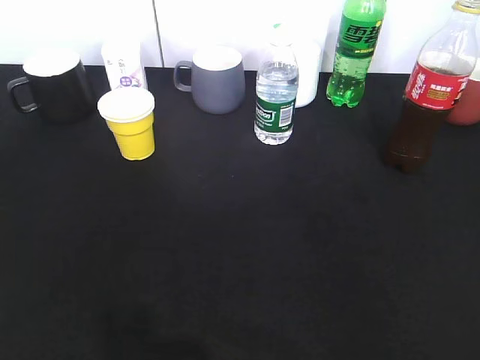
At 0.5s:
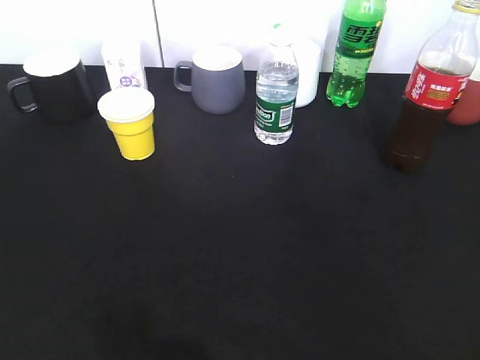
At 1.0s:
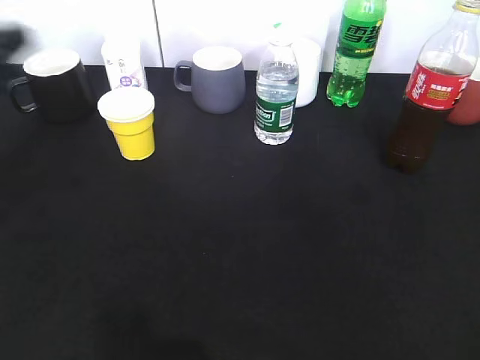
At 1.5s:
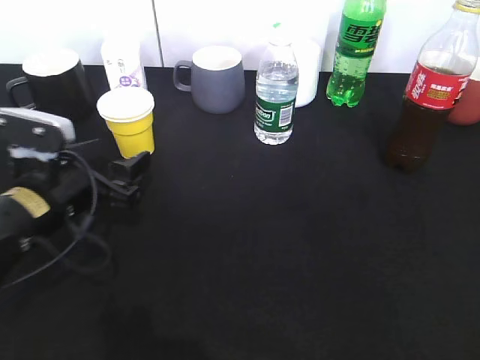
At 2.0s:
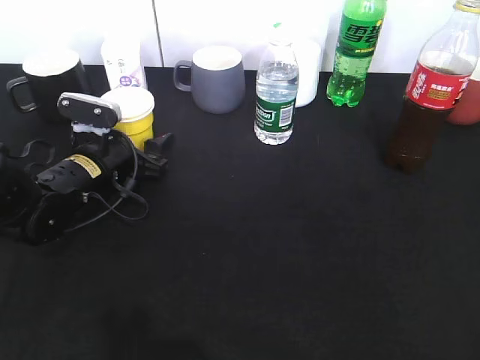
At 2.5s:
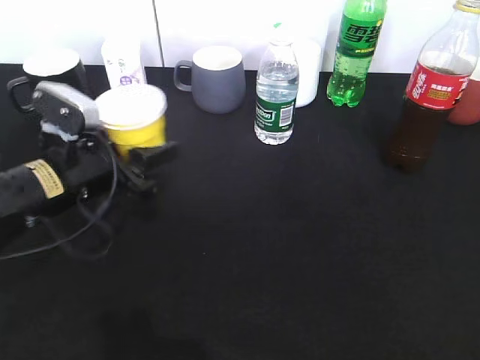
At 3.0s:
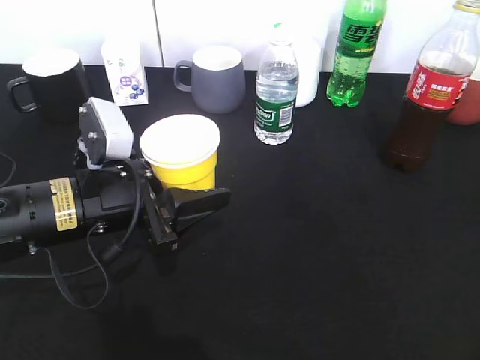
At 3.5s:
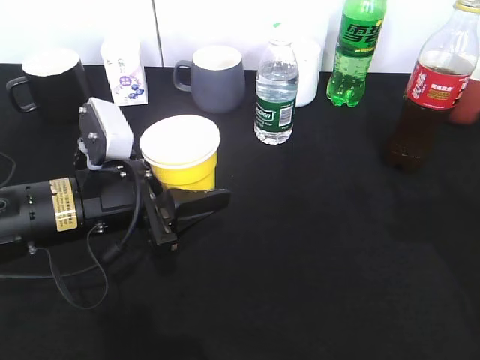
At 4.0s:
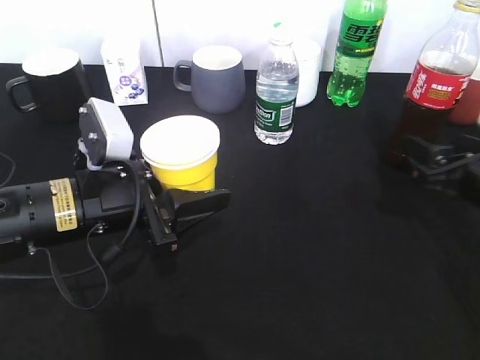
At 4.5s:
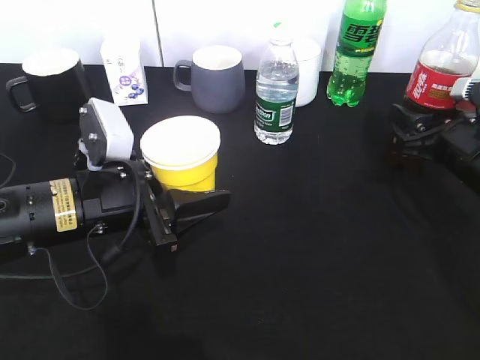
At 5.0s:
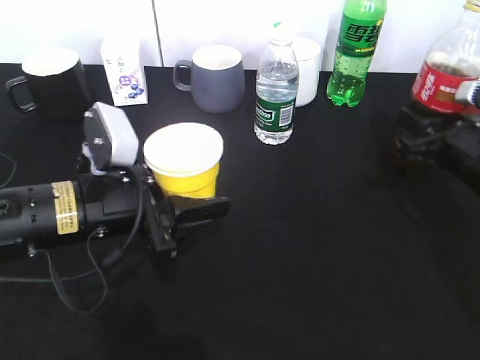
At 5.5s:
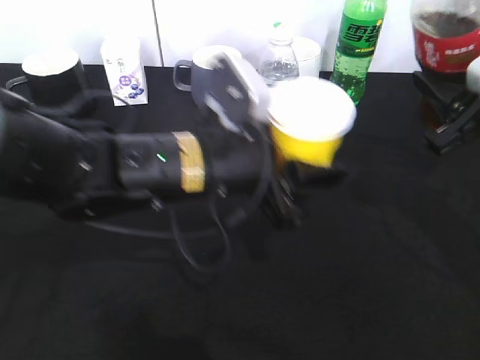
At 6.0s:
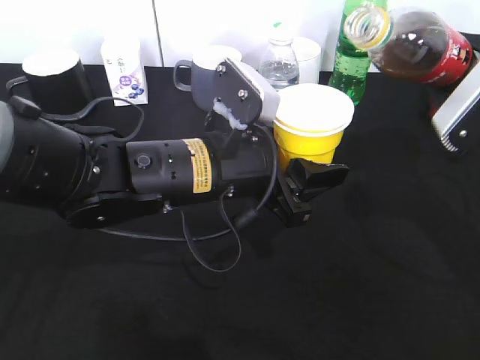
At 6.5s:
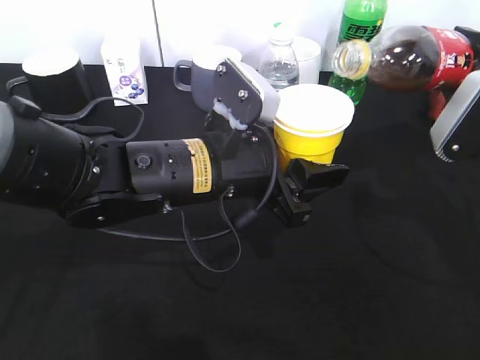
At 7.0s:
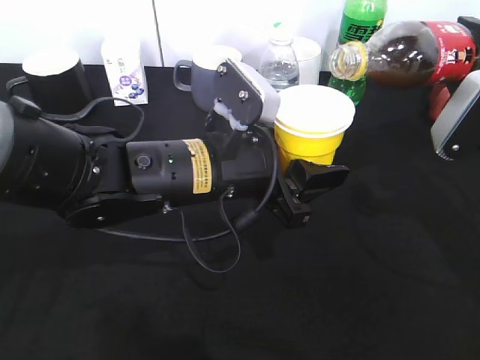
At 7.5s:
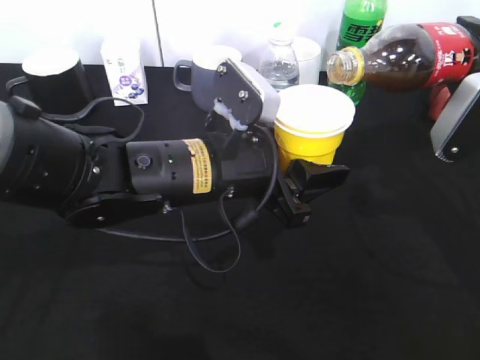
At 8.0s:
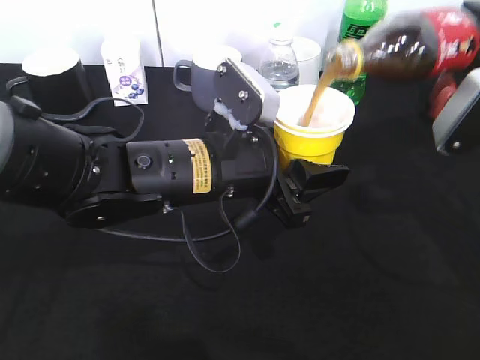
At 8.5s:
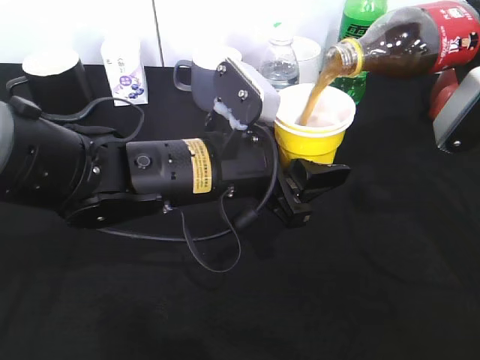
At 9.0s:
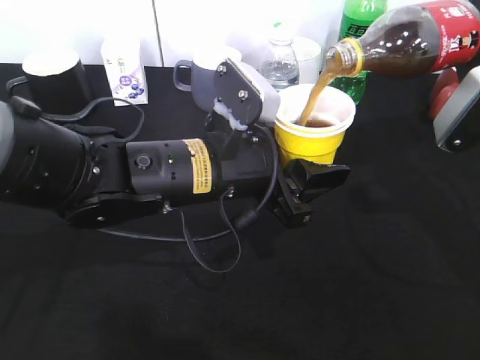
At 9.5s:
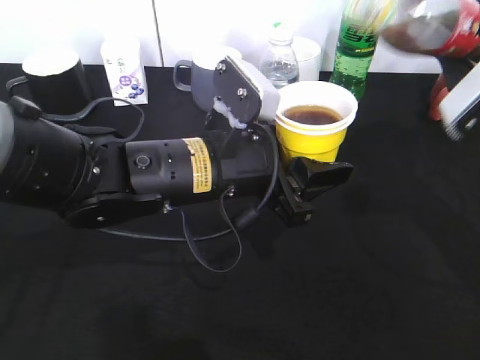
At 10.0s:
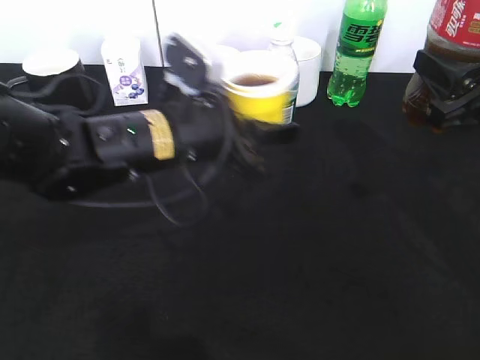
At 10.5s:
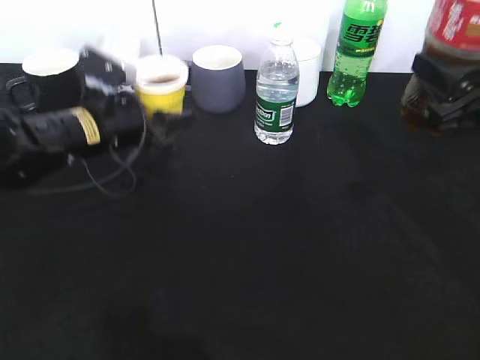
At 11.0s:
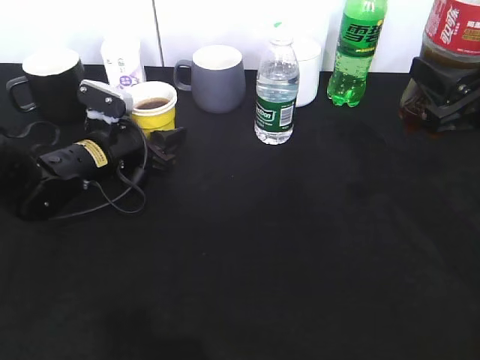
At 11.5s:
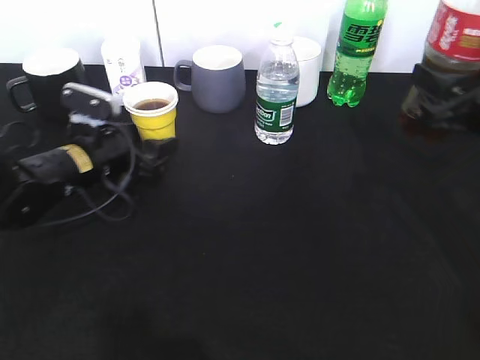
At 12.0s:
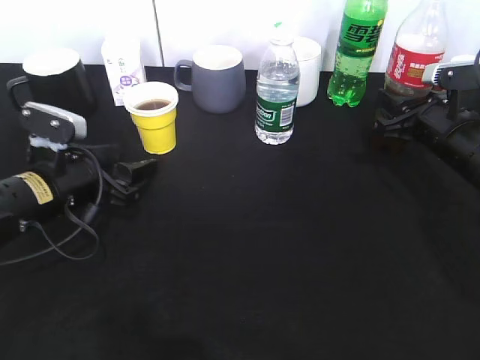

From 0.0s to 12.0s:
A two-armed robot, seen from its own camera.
Step, from 0.0s to 2.0s: Grasp the yellow paper cup with left gripper.
Step, from 2.5s to 3.0s: Lift the yellow paper cup with left gripper.
Step, from 3.5s to 4.5s: Grasp the bottle with cola with right gripper.
Step, from 5.0s to 9.0s: Pour the cola from bottle to cup with right gripper.
Step, from 9.5s to 11.5s: Place the yellow paper cup on the table with left gripper.
From 0.0s to 2.0s: The left gripper shifts about 40 cm forward, downward and to the right, and opens its fingers.
From 2.0s to 4.0s: The right gripper shifts approximately 30 cm forward and downward, while the left gripper moves backward and upward, some 10 cm, and closes.
From 4.0s to 6.0s: The right gripper shifts about 10 cm upward, and closes up, while the left gripper goes about 10 cm to the right.
From 8.0s to 10.0s: The left gripper changes place by some 5 cm.
From 10.0s to 12.0s: The right gripper moves downward and forward, roughly 15 cm. Meanwhile the left gripper travels to the left and downward by some 15 cm, and opens its fingers.

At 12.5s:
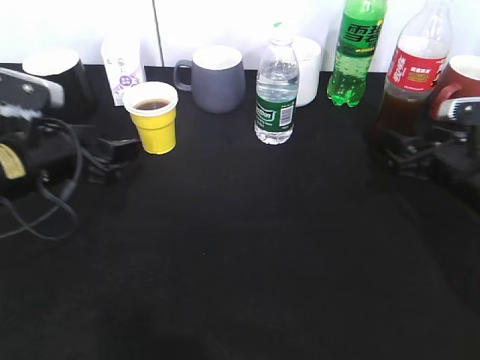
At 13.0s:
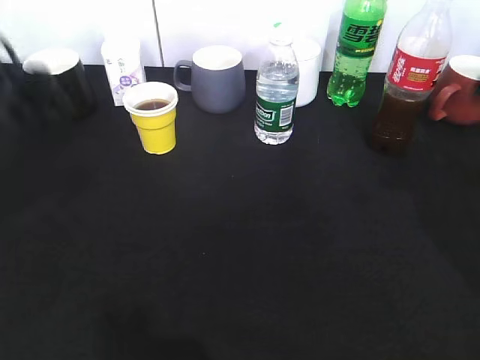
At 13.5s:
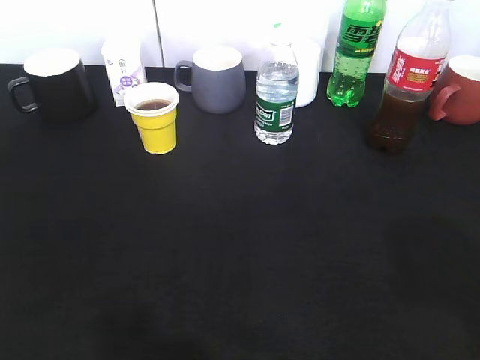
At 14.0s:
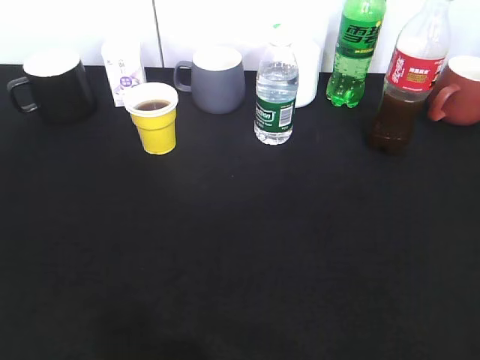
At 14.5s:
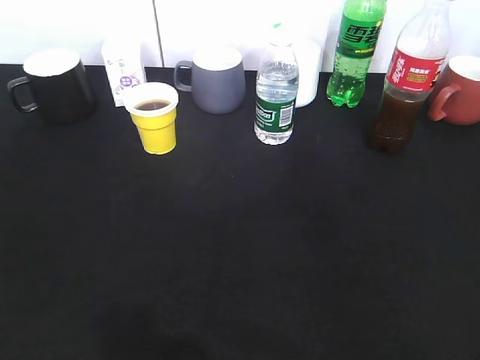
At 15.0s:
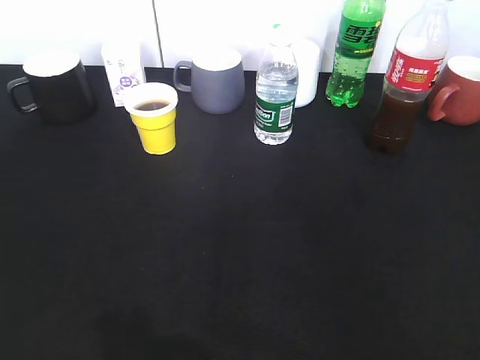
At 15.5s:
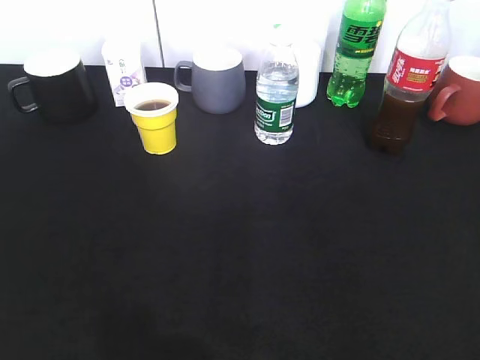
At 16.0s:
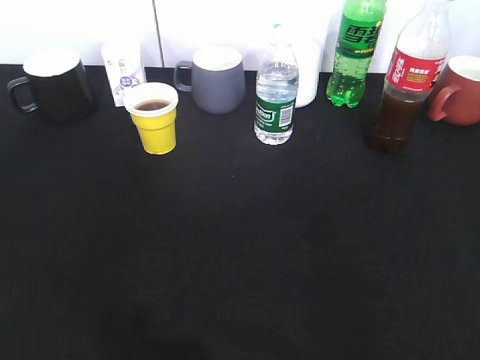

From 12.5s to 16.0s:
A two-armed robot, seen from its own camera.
From 12.5s to 14.5s: The two grippers go roughly 30 cm backward and upward. The left gripper closes up.

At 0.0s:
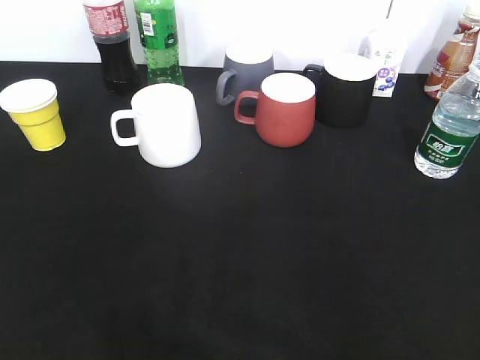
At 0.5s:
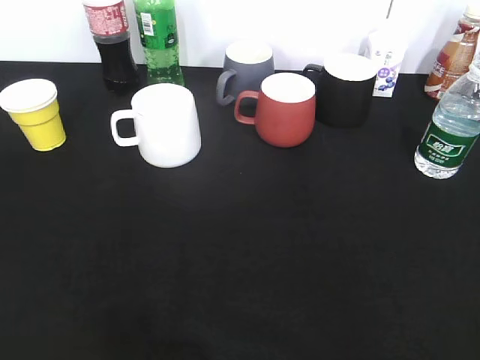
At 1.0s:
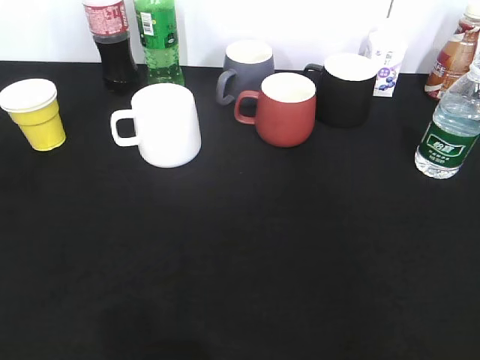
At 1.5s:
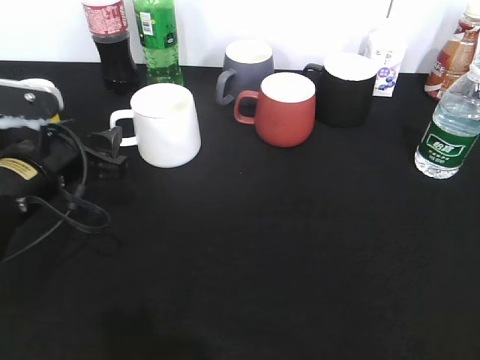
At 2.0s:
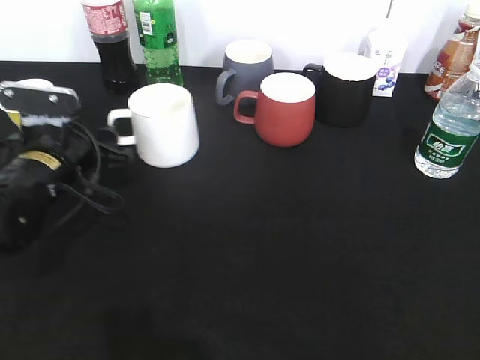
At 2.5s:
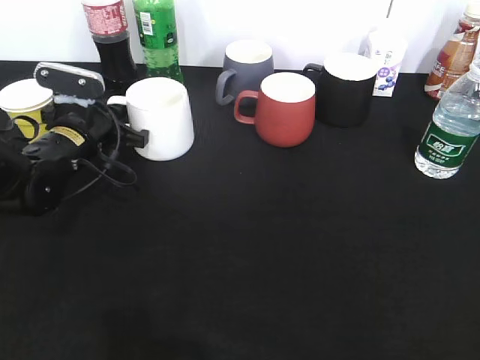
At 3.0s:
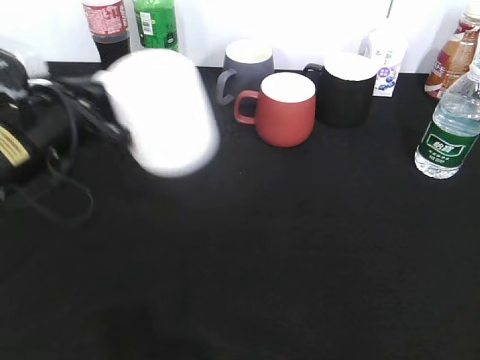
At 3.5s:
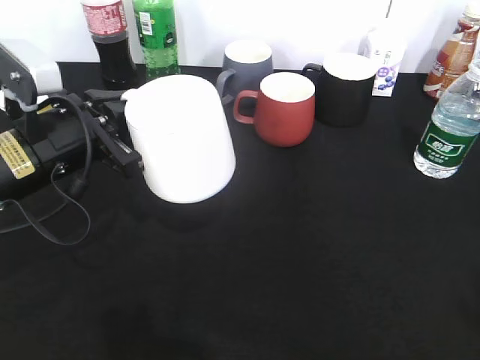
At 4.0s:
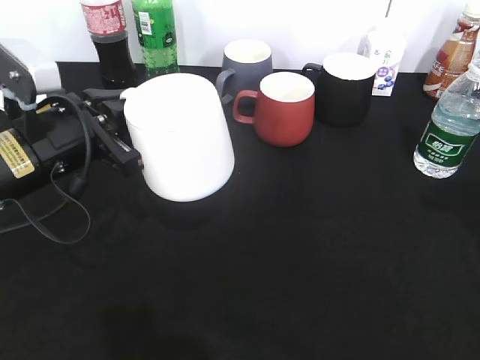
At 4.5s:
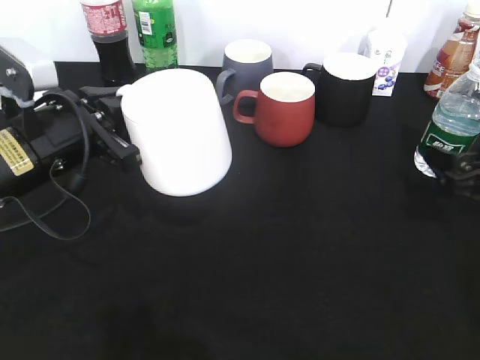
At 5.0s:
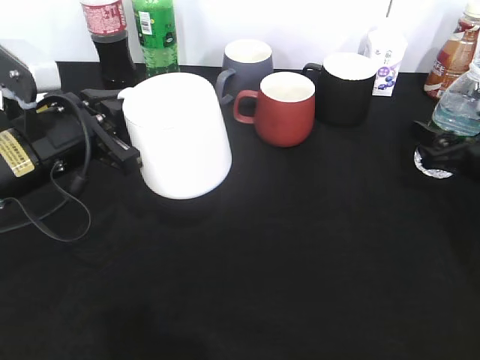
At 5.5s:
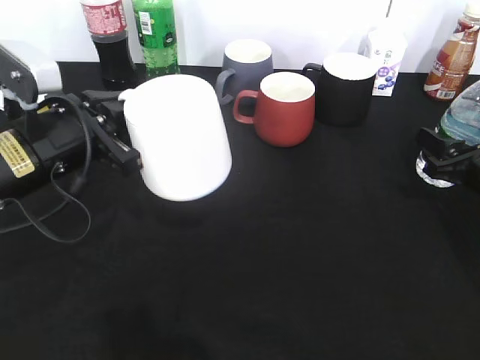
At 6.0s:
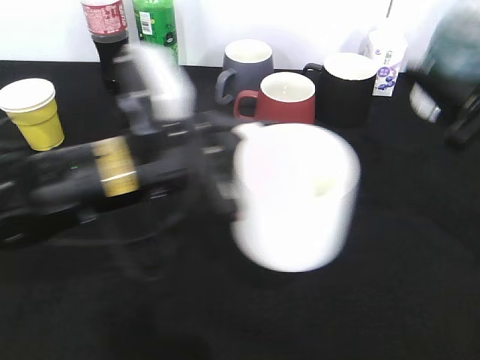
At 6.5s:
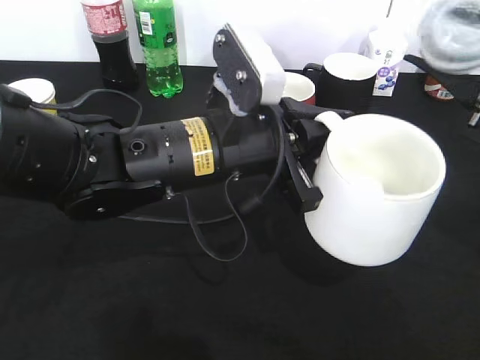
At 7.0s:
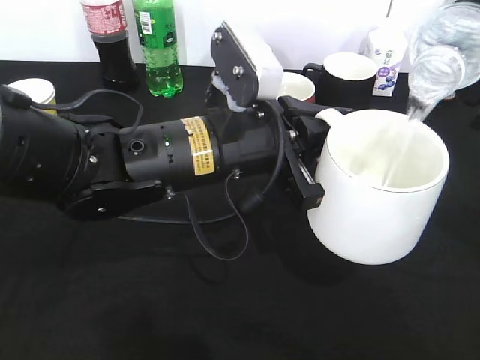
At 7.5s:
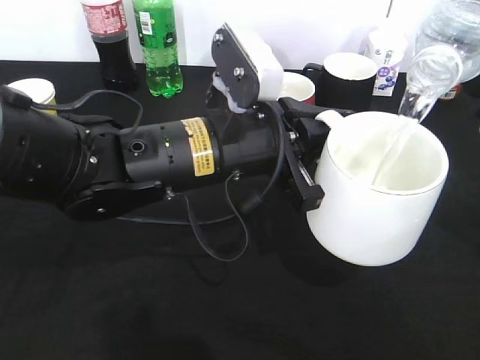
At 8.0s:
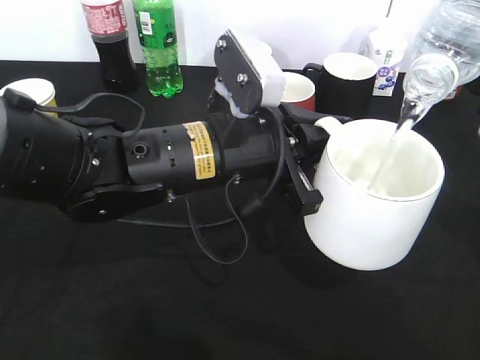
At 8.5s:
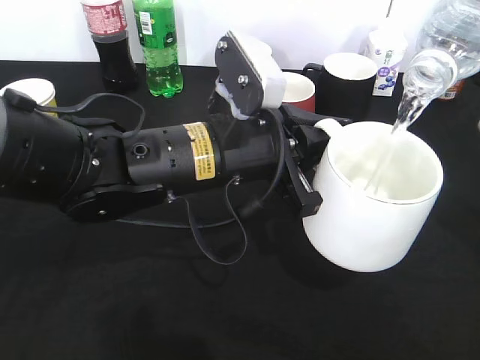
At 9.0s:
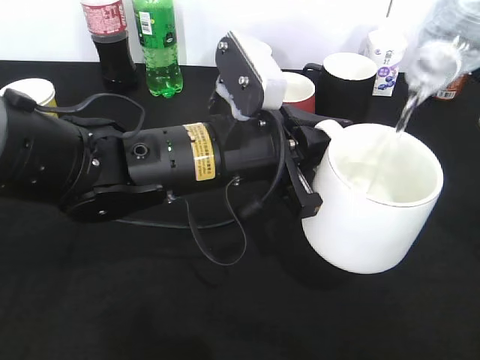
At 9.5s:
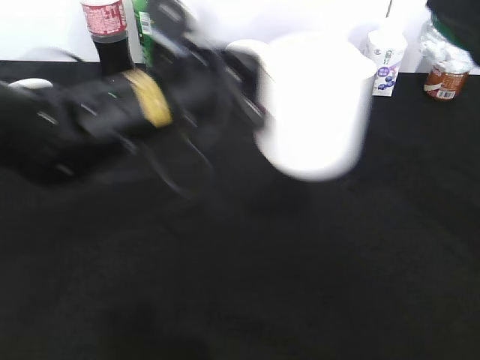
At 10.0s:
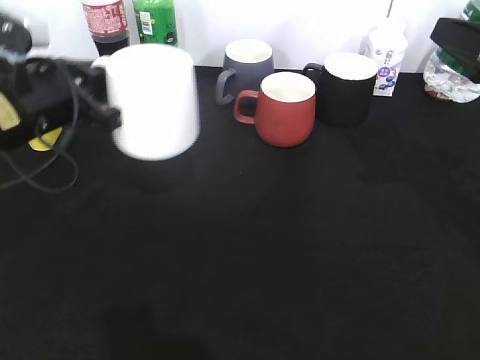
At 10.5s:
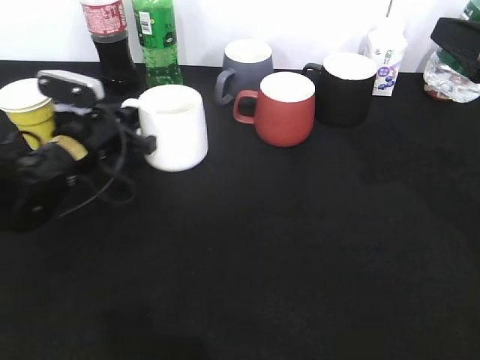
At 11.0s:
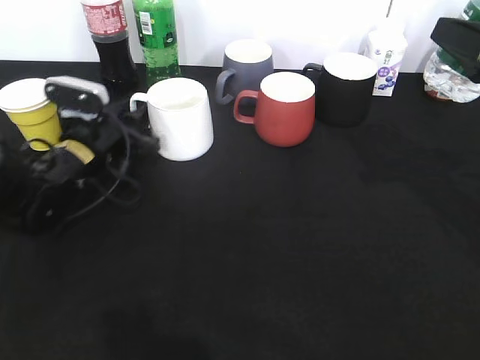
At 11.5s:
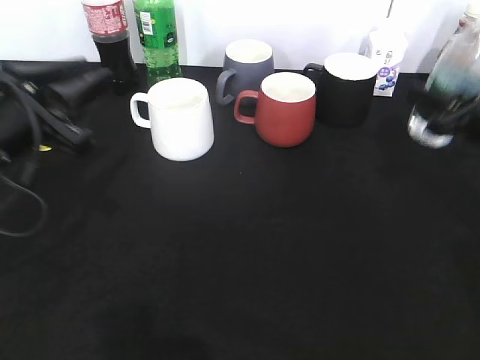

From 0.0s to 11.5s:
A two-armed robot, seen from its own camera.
Step, from 0.0s to 2.0s: Grasp the white cup with left gripper.
Step, from 3.5s to 5.0s: Grasp the bottle with water with right gripper.
Step, from 5.5s to 9.0s: Pour the water from bottle to cup with right gripper.
Step, from 9.5s to 11.0s: Place the white cup on the table with left gripper.
From 0.0s to 2.0s: The left gripper moves forward and downward, approximately 35 cm, and opens.
From 2.0s to 4.0s: The left gripper moves upward, some 5 cm, and closes its fingers; the right gripper is displaced forward by approximately 20 cm, and closes up.
From 4.0s to 6.0s: The left gripper is displaced to the right by approximately 10 cm. The right gripper heads to the left, covering some 5 cm, goes downward and returns, about 10 cm each way, and opens, then closes again.
From 6.0s to 7.5s: The left gripper heads to the right, covering some 5 cm.
From 7.5s to 9.5s: The left gripper ends up roughly 5 cm from where it was.
From 9.5s to 11.5s: The right gripper is displaced downward and forward by about 15 cm. Meanwhile the left gripper travels to the left by about 15 cm, and opens up.
